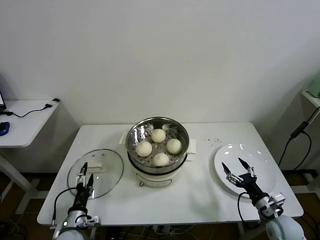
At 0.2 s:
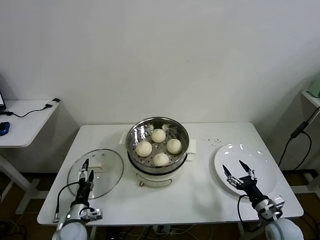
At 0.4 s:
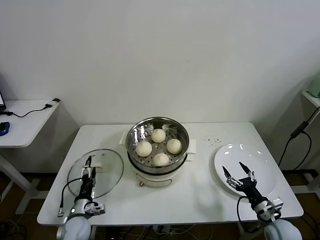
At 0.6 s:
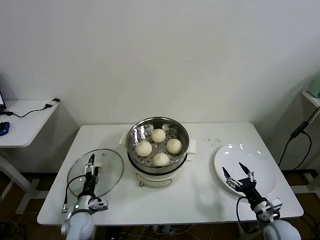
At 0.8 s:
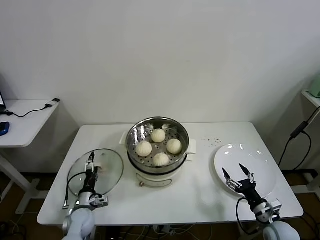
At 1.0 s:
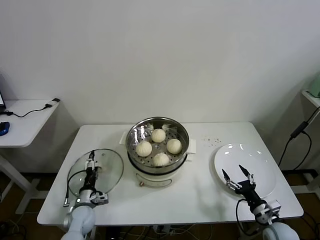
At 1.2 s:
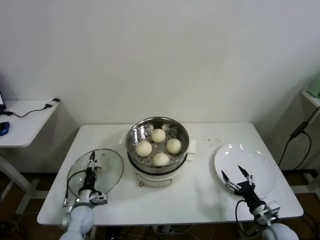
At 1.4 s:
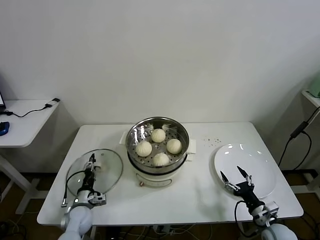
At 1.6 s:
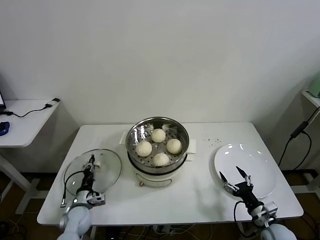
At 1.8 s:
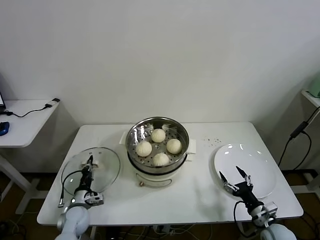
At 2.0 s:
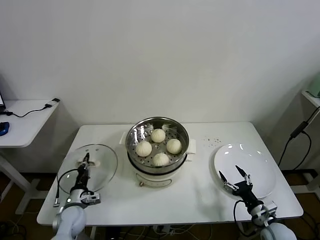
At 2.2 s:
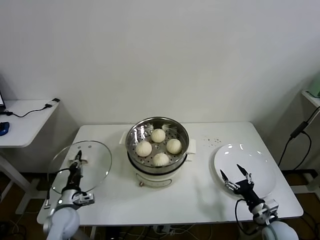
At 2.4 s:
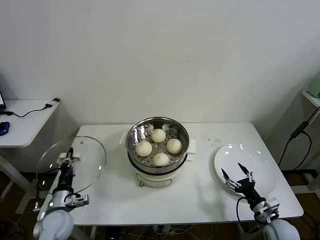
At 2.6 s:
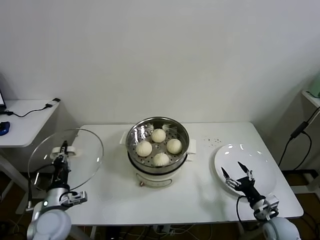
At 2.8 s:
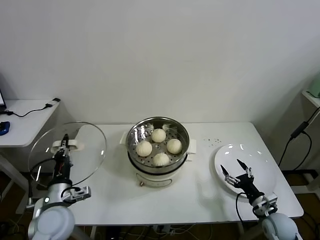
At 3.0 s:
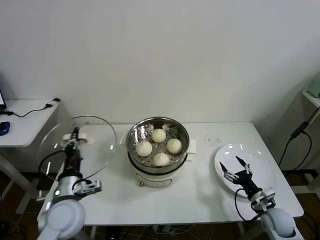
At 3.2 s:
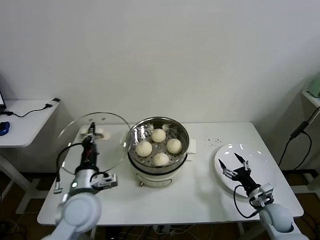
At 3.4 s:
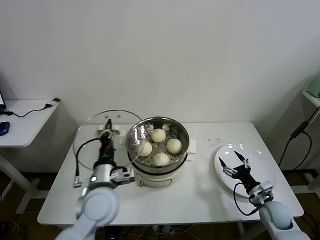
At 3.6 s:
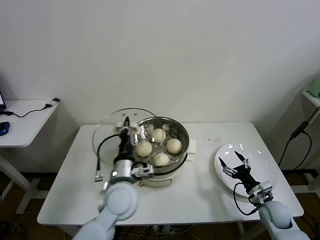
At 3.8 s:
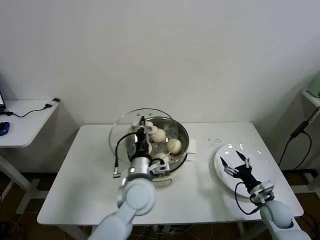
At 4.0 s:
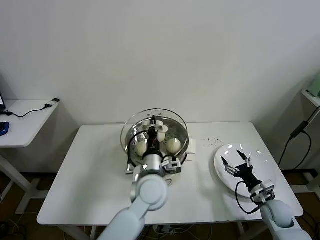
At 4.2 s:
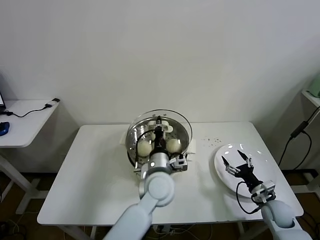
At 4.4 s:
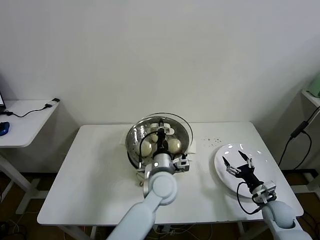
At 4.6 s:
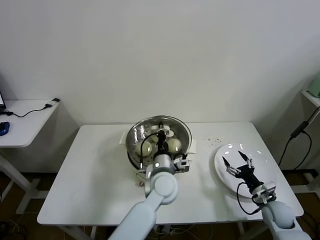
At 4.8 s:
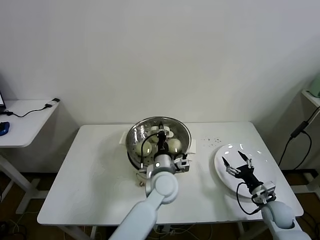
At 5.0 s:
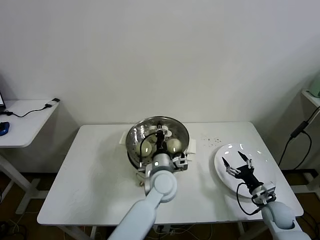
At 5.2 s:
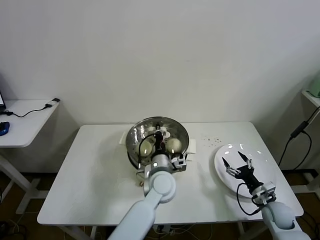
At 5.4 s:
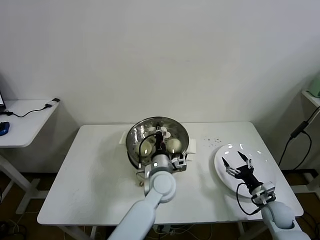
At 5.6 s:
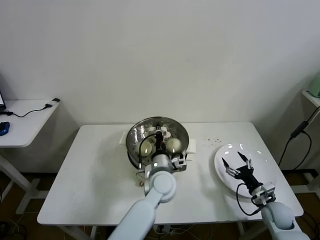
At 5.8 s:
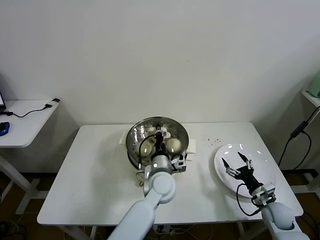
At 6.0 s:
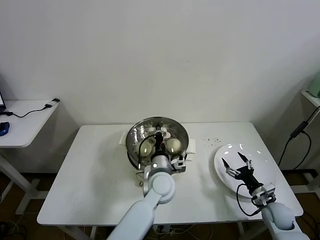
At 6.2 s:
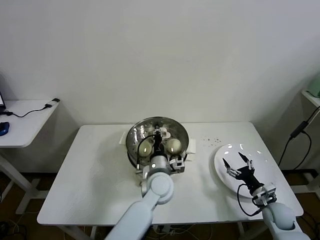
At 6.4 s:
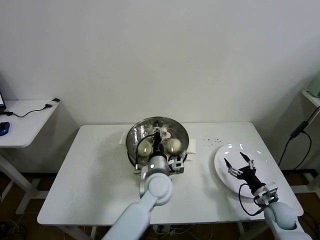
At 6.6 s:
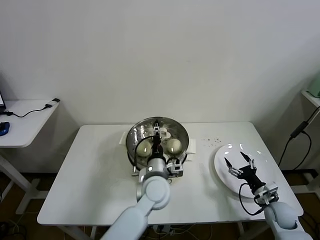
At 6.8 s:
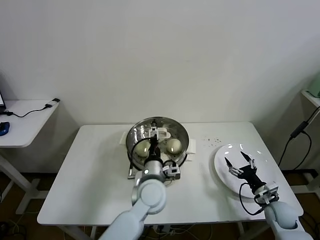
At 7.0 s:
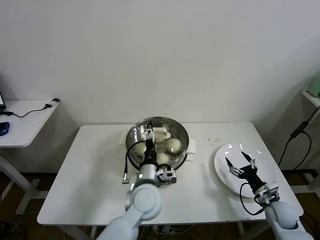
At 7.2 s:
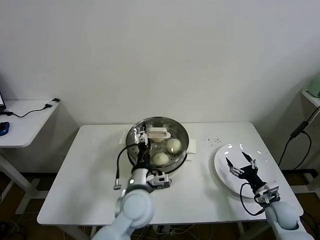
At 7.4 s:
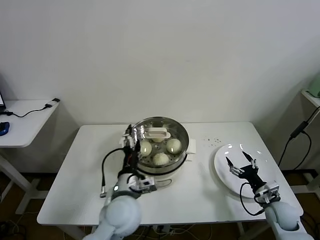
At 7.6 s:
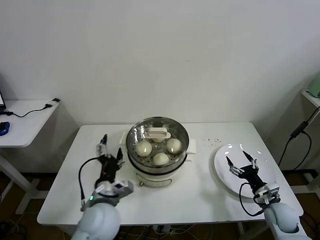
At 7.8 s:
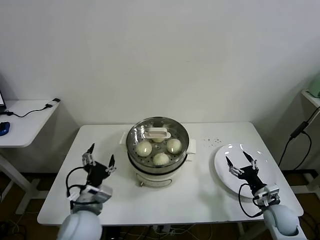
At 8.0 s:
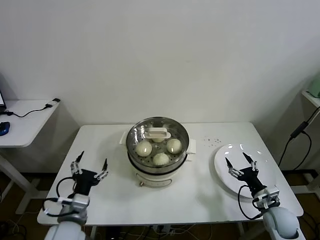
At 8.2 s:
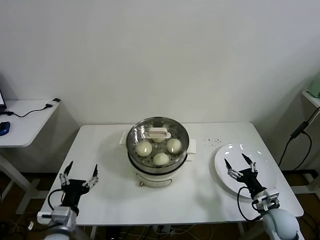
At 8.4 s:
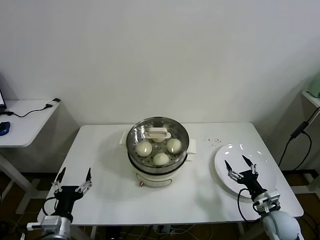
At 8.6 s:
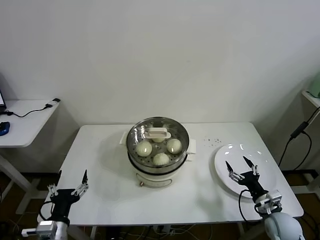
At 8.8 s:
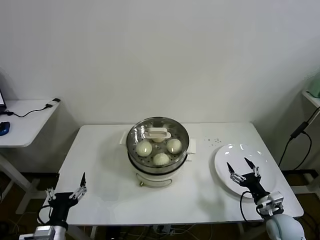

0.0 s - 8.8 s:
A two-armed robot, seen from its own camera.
Task of the whole recording: take steamed baozi put them in steamer then cover it.
Step, 2.0 s - 6.6 s: Place the pot lid on the steamer with left gripper.
0.0 s - 1.4 s: The left gripper travels forward by about 10 cm, and closes.
1.4 s - 3.0 s: The right gripper shifts by roughly 5 cm. Meanwhile the left gripper heads upward, covering roughly 20 cm, and closes its fingers.
3.0 s - 4.4 s: The left gripper goes some 25 cm to the right.
4.4 s - 5.8 s: There are only small adjustments of the grippers.
5.8 s - 7.4 s: The left gripper moves to the left and backward, approximately 15 cm, and opens.
7.4 s - 8.8 s: The right gripper shifts by about 5 cm. Meanwhile the left gripper moves to the left and backward, approximately 25 cm.
